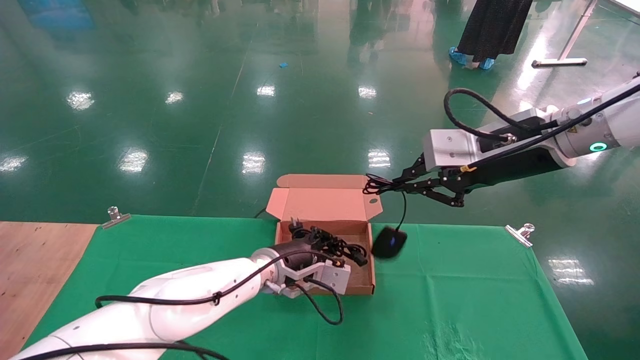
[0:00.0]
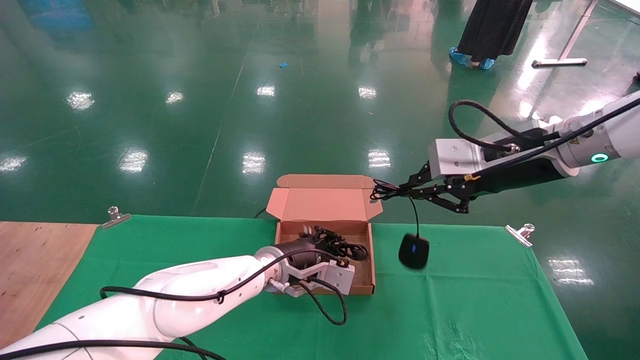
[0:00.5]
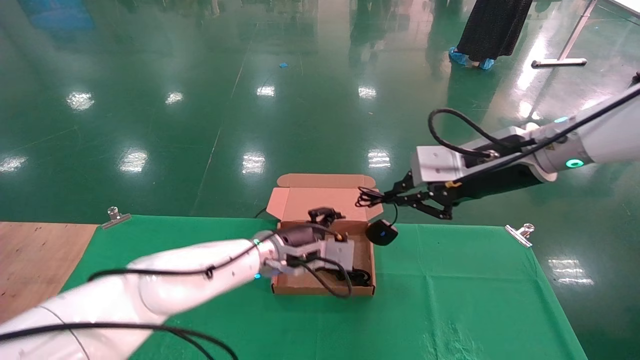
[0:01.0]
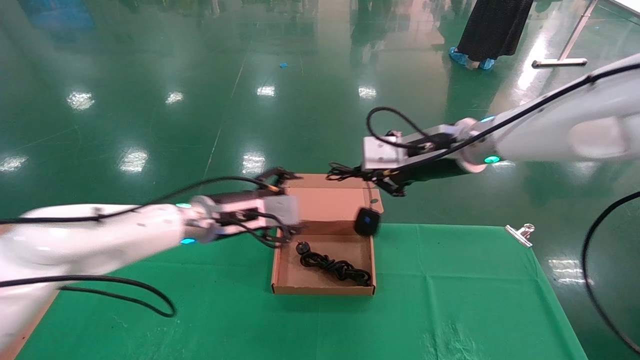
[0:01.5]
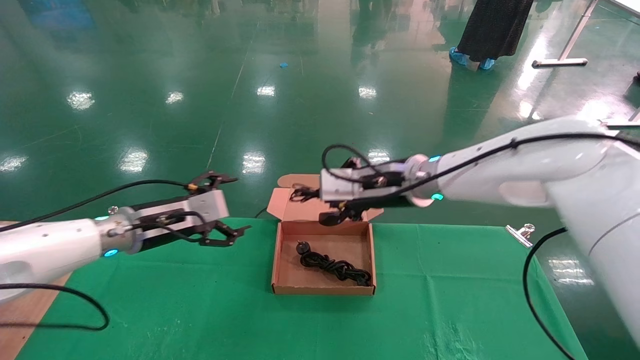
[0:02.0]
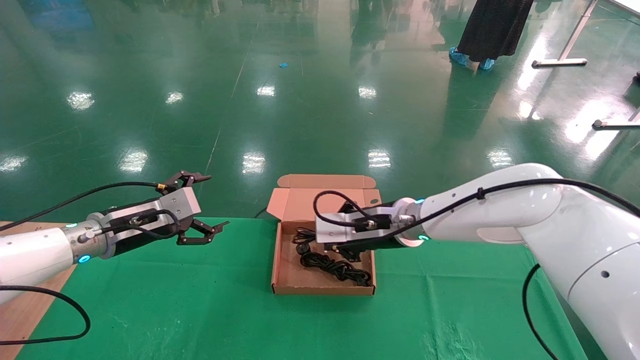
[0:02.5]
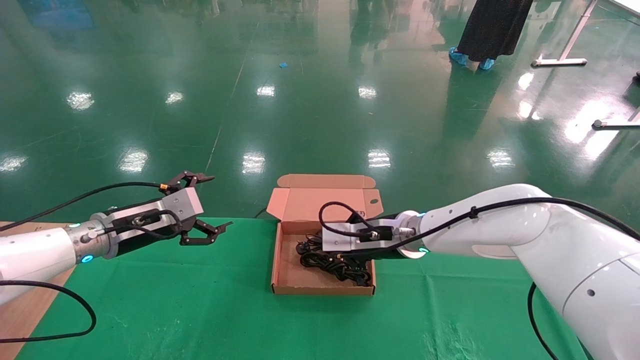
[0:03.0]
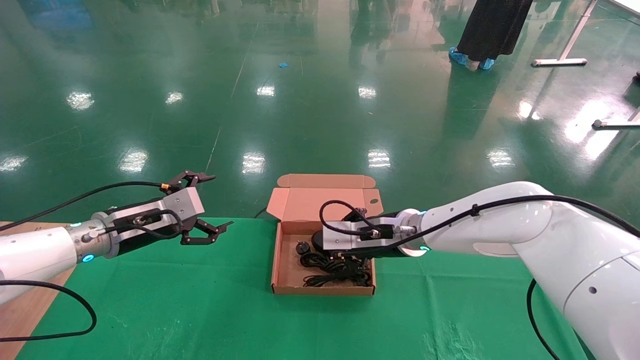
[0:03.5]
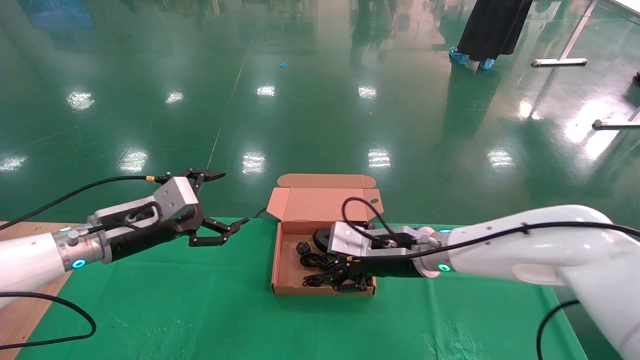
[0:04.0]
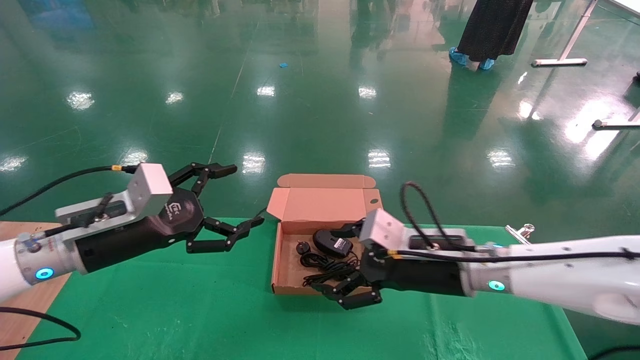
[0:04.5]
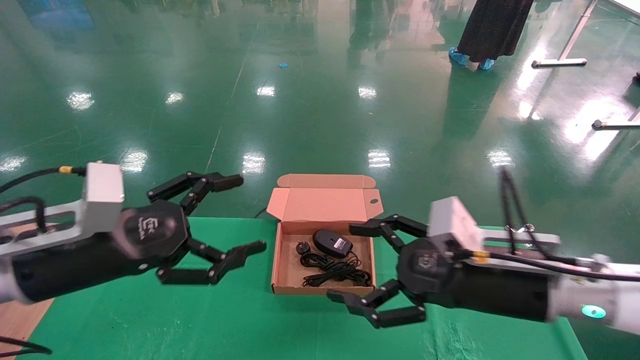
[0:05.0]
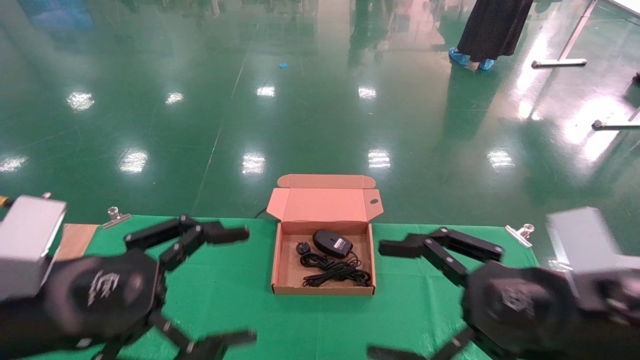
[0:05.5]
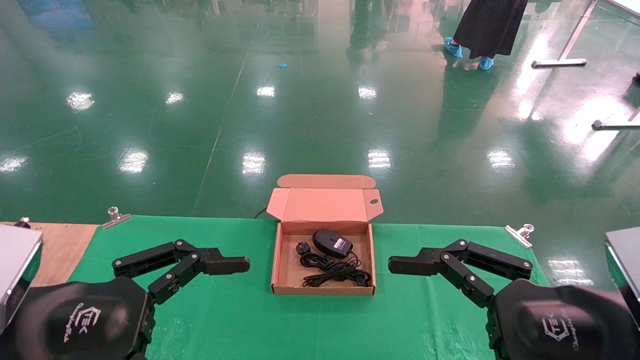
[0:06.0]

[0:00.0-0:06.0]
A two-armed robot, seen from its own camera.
Step, 0:00.0 to 0:04.5: Place the mouse and power cord into the box.
0:00.0 to 0:02.0: The right gripper travels to the left, downward and forward by roughly 15 cm, while the left gripper is displaced to the left by approximately 20 cm, and opens its fingers.
0:02.0 to 0:04.0: The right gripper travels downward by approximately 10 cm, and opens its fingers.
0:04.0 to 0:06.0: The right gripper heads backward and to the right, covering approximately 30 cm, and opens; the left gripper is displaced backward by approximately 25 cm.

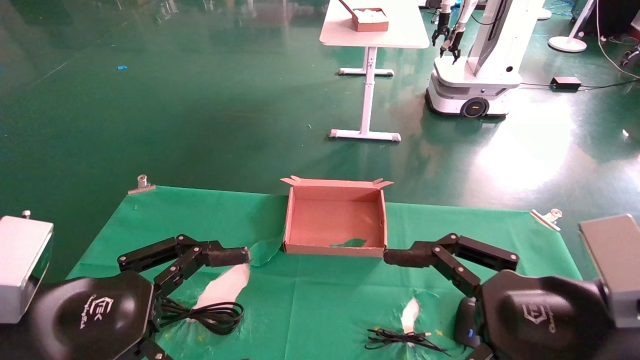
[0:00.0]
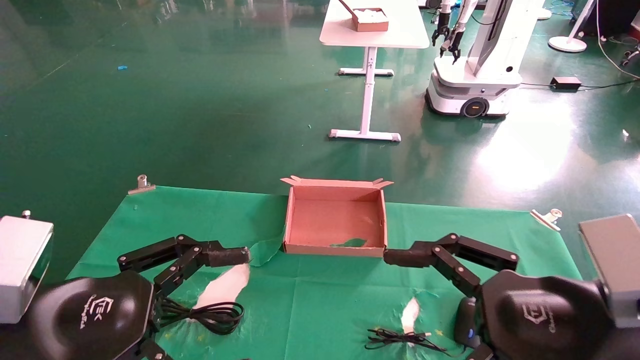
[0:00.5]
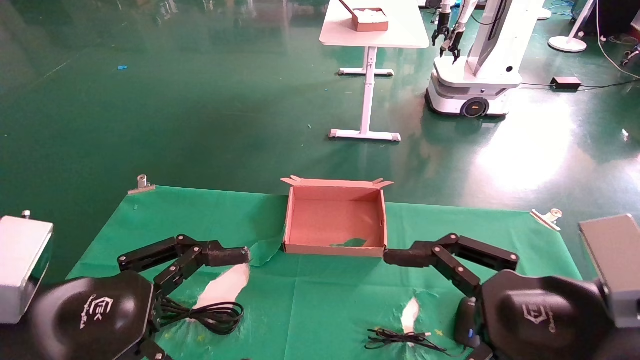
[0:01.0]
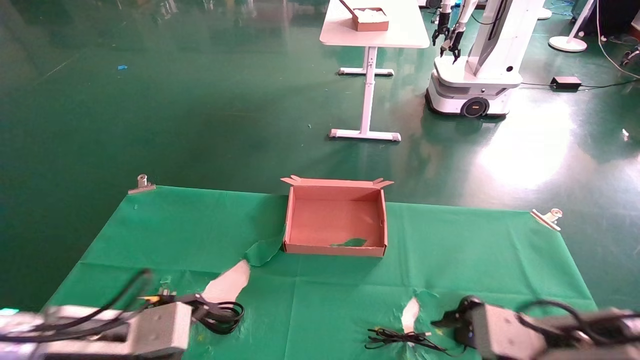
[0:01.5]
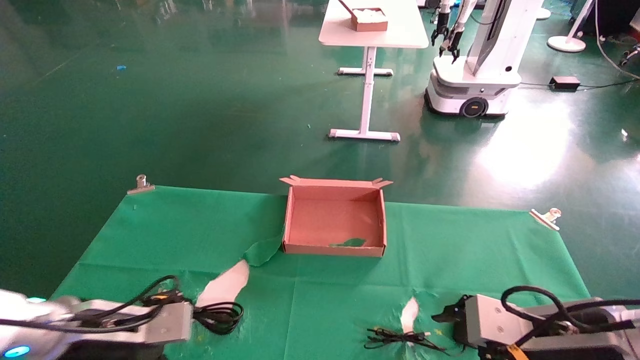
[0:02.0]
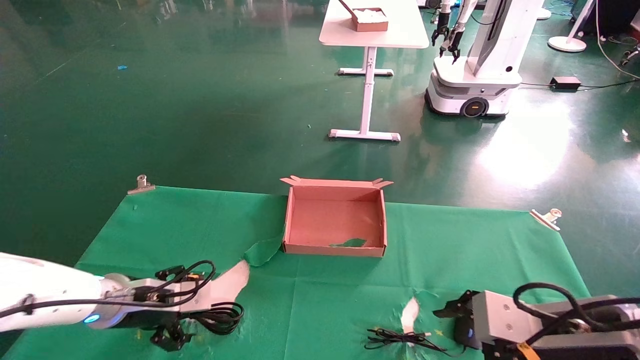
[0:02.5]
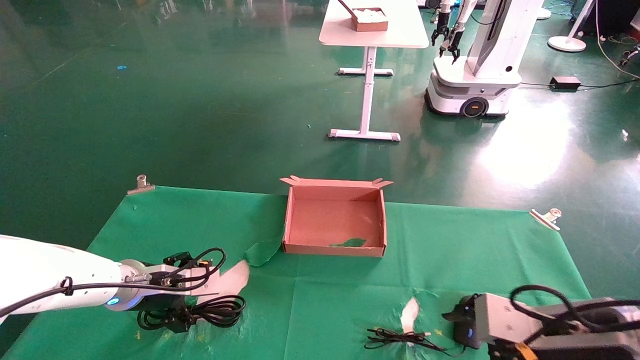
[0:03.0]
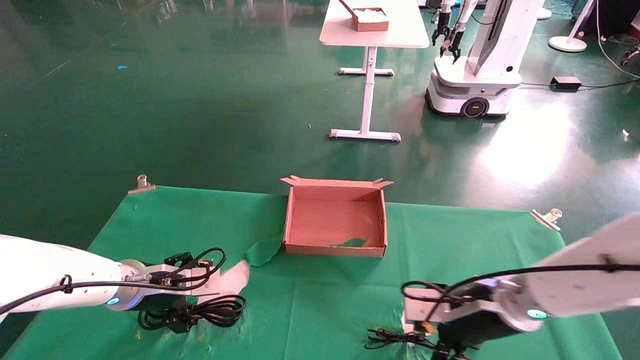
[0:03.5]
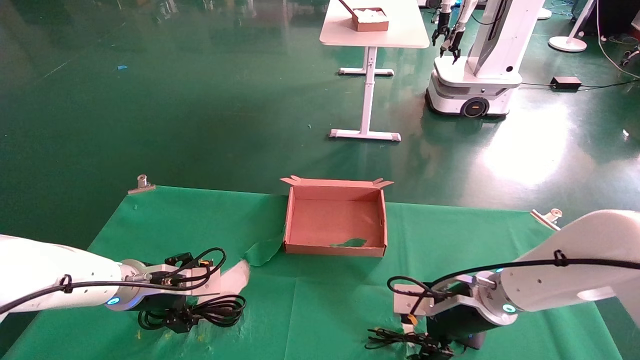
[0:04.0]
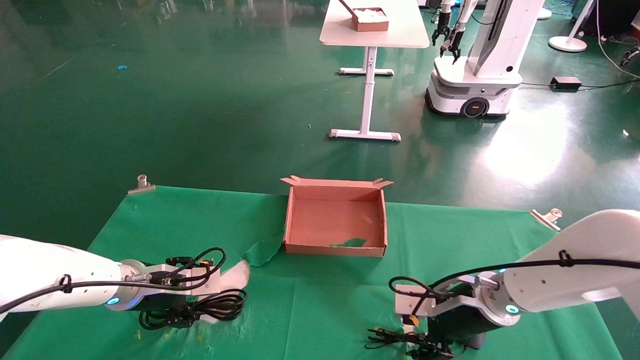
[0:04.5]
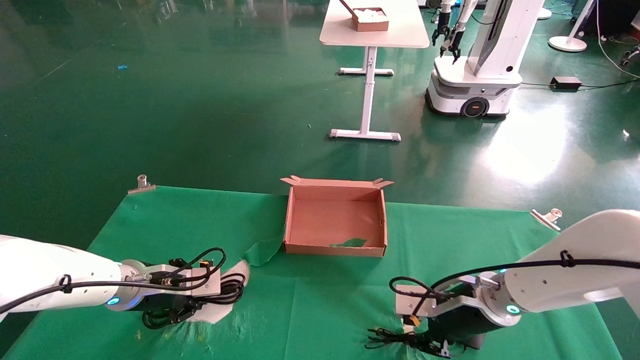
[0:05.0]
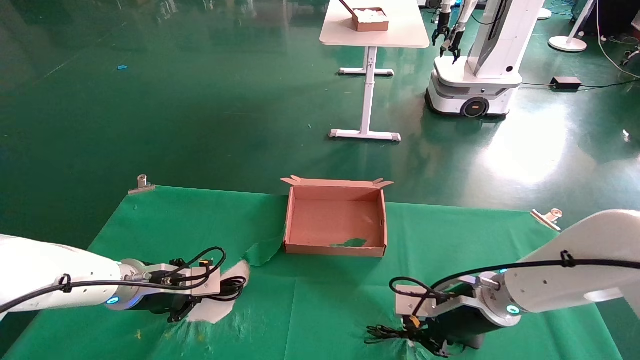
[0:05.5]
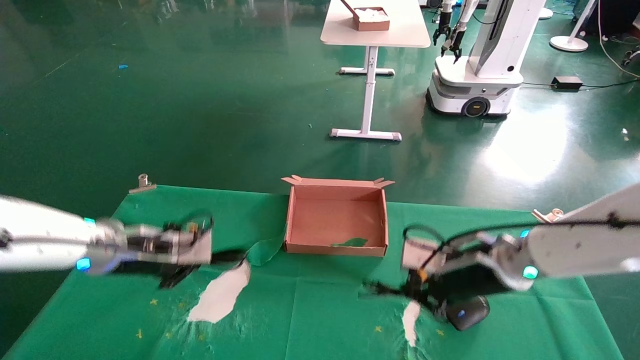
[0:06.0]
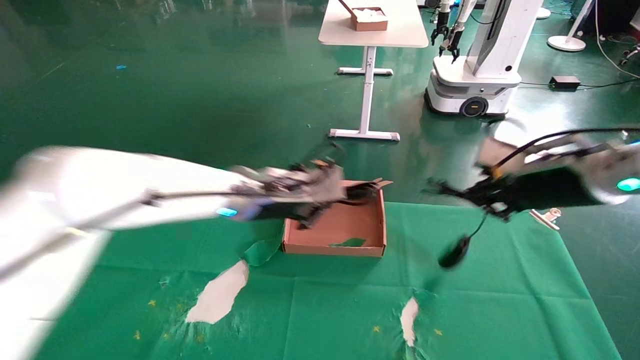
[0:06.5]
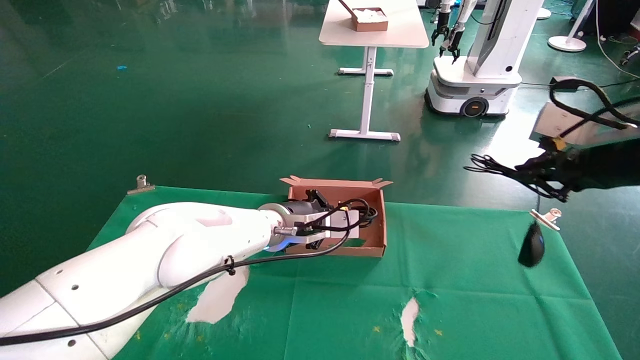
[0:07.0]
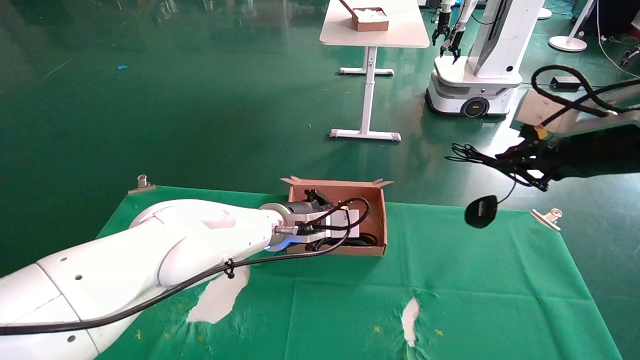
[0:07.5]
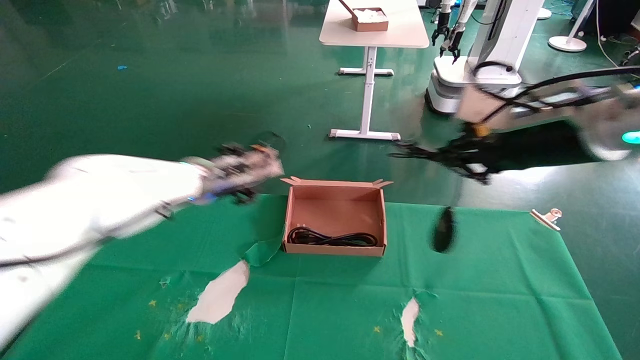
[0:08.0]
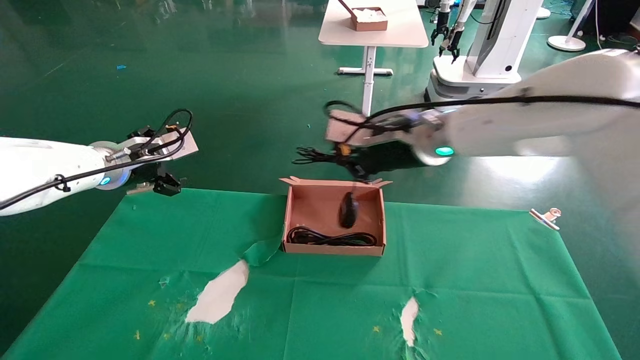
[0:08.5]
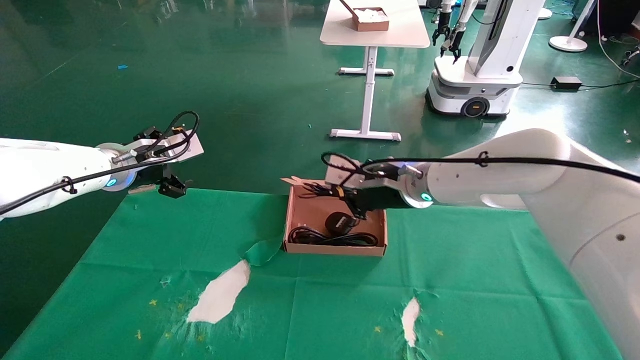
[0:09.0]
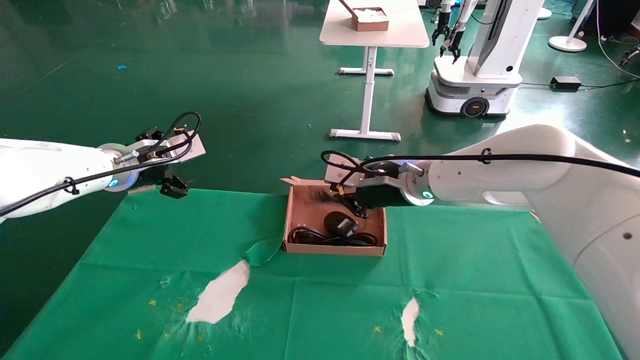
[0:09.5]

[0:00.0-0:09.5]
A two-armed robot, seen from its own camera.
Step, 0:02.0 to 0:06.0: Grab and lift both the mouse and power cord from the accessory packaging area at the same time.
0:00.0 to 0:02.0: The right gripper is displaced forward and downward by approximately 10 cm. Meanwhile the left gripper goes roughly 15 cm forward and downward.
0:02.0 to 0:04.0: The right gripper travels forward and to the left by roughly 15 cm. The left gripper moves forward, approximately 10 cm.
0:04.0 to 0:05.5: The right gripper closes up. The left gripper closes its fingers.
0:05.5 to 0:07.5: The right gripper is displaced upward and to the right by some 25 cm. The left gripper moves to the right, some 20 cm.
0:07.5 to 0:09.5: The right gripper travels to the left and forward by roughly 25 cm. Meanwhile the left gripper shifts roughly 25 cm to the left, and opens its fingers.

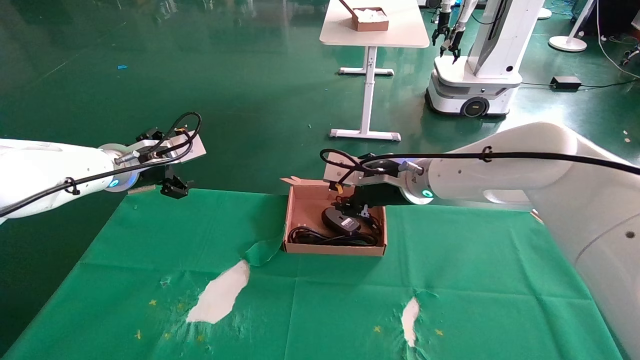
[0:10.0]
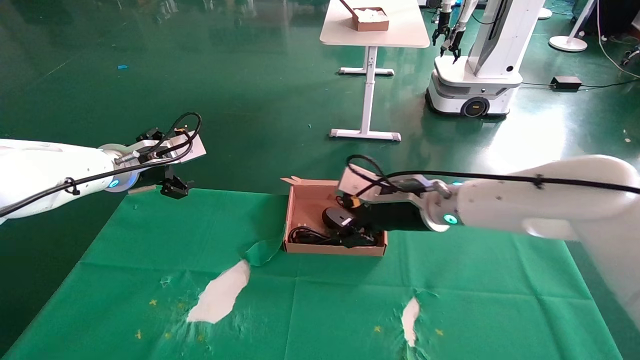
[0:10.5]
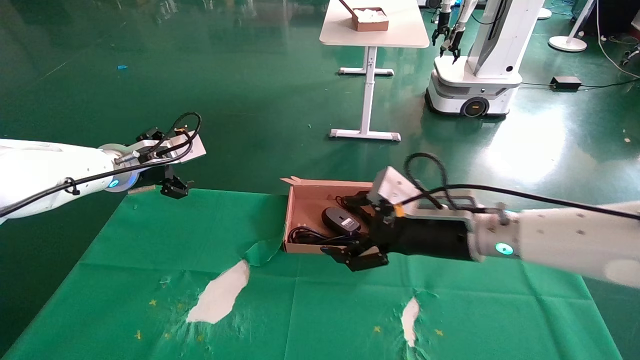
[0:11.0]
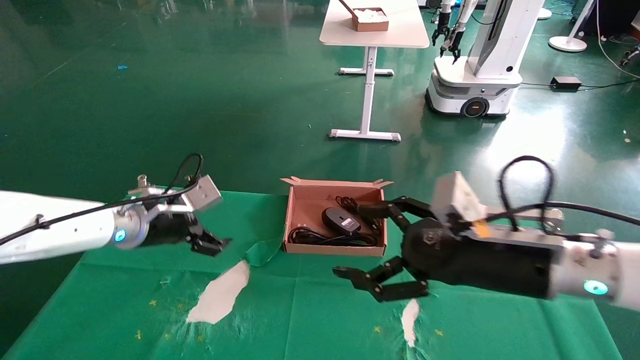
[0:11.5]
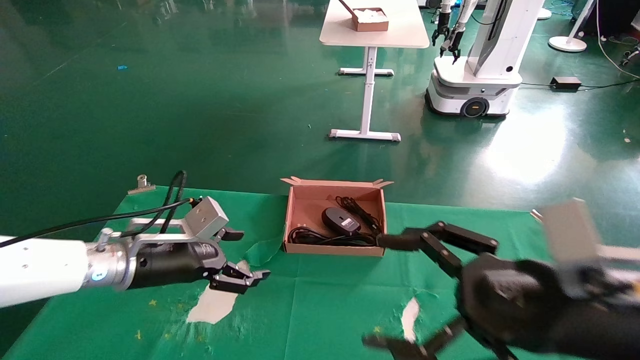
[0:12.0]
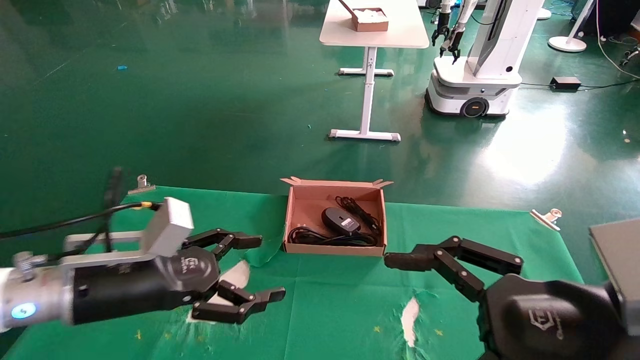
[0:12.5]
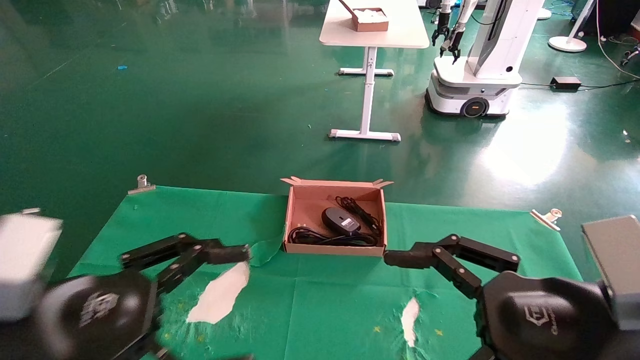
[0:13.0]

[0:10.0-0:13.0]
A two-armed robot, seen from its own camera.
0:10.0 to 0:11.5: The right gripper goes about 20 cm backward and to the right, and opens up. The left gripper moves downward, some 10 cm.
0:11.5 to 0:13.0: The right gripper shifts roughly 10 cm backward. Meanwhile the left gripper is displaced backward by roughly 25 cm.
